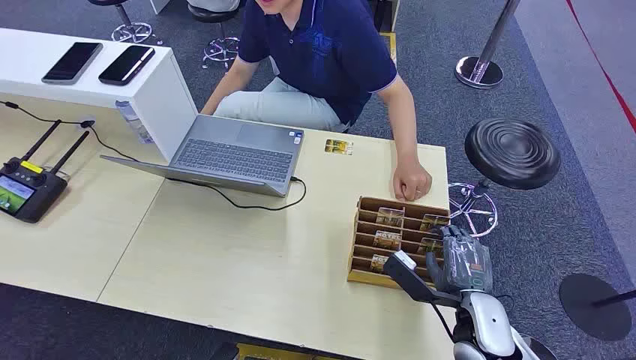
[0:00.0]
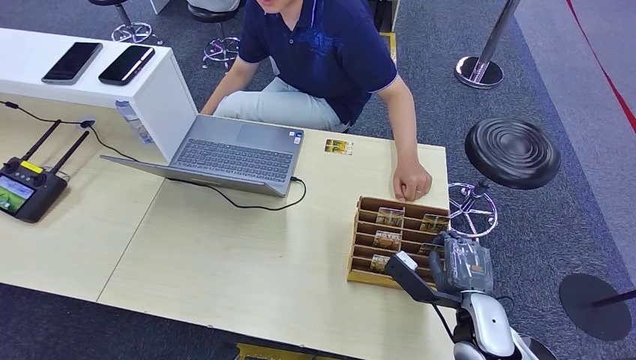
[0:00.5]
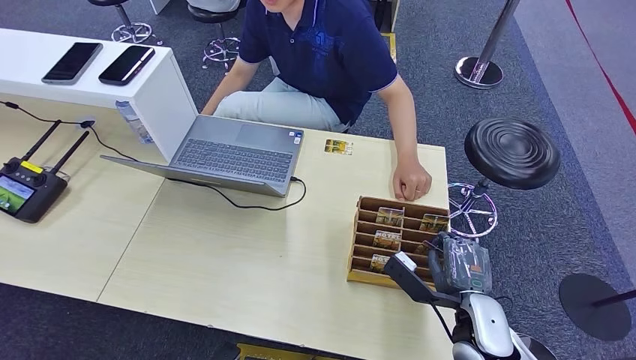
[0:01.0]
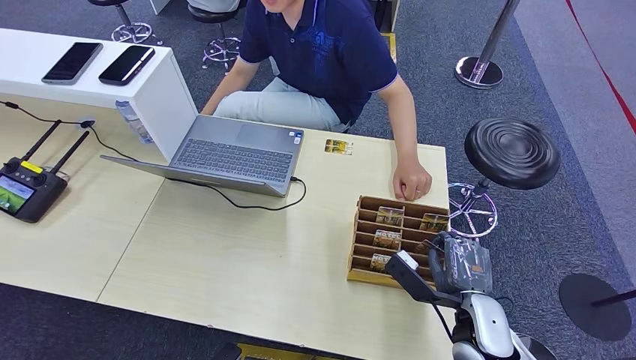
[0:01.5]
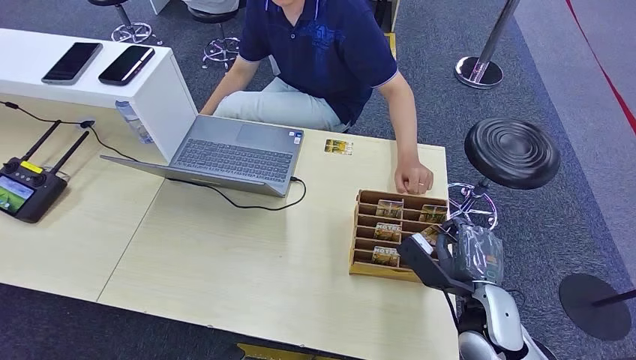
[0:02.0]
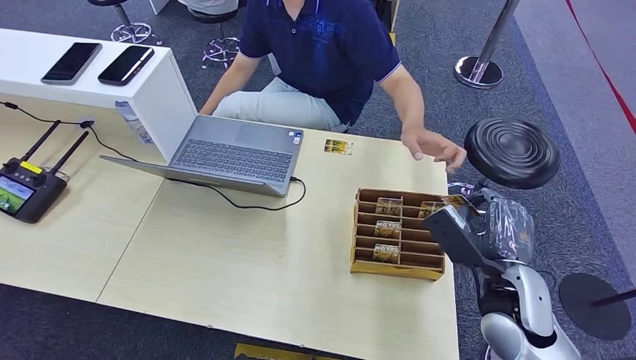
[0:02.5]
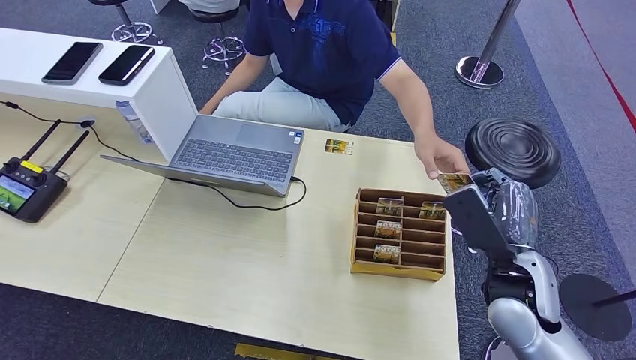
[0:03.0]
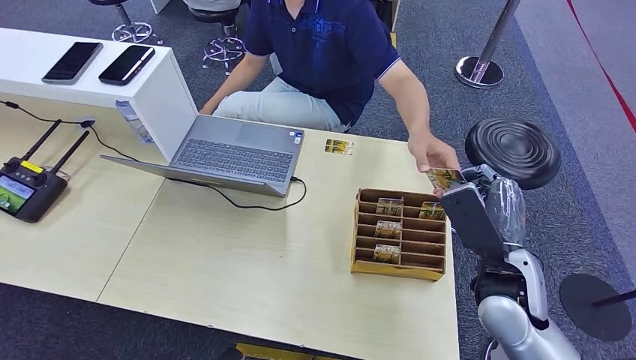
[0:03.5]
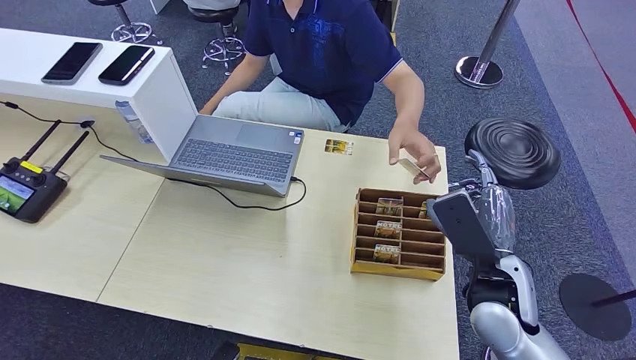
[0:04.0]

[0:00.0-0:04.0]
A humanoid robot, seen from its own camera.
Step, 0:00.0 to 0:02.5: Pick up the room card from the card holder.
Step, 0:03.0 to 0:04.0: Hand the room card to the target.
0:02.0 to 0:04.0: The right hand shifts some 5 cm upward.
